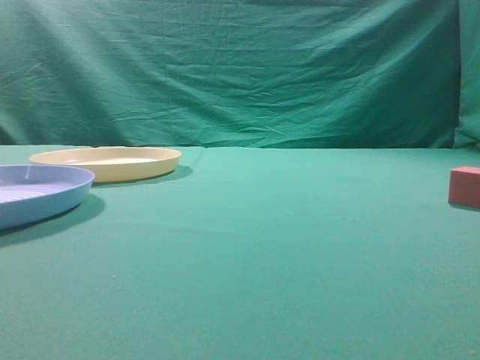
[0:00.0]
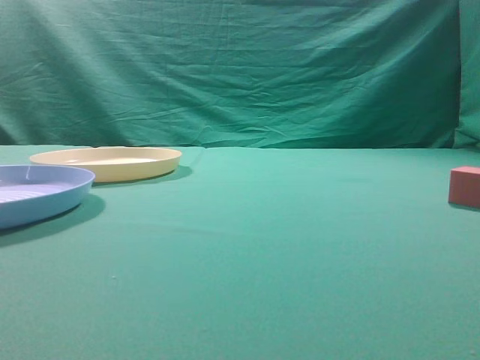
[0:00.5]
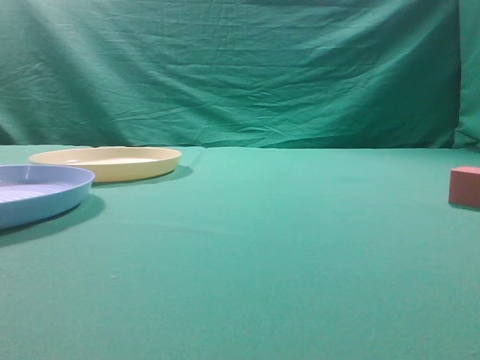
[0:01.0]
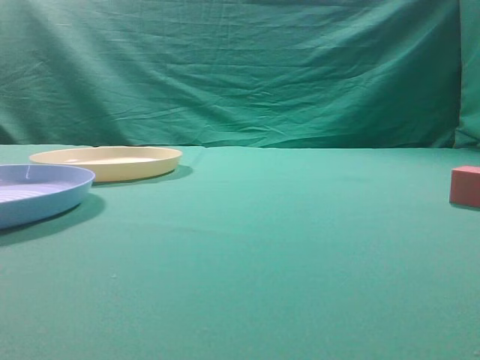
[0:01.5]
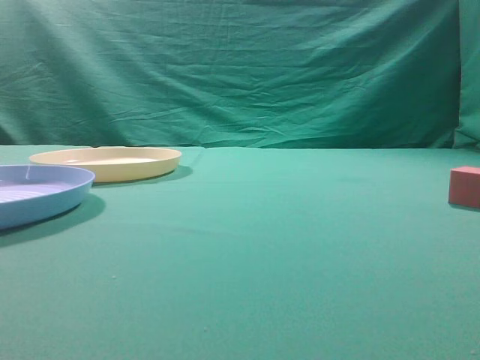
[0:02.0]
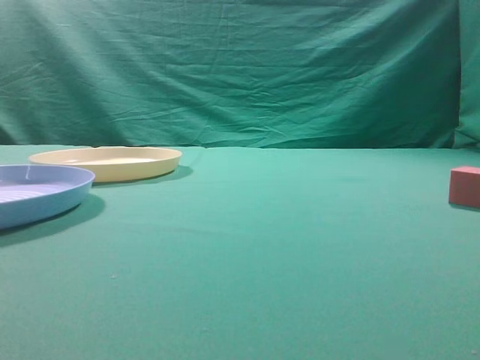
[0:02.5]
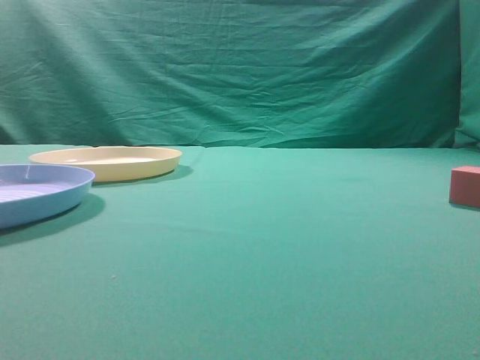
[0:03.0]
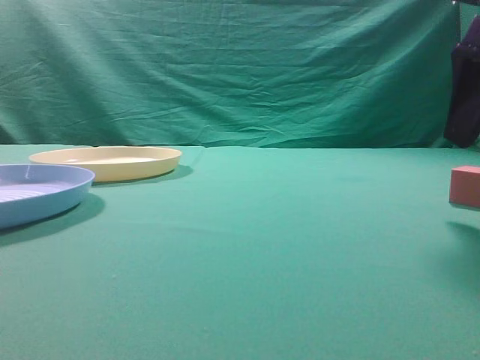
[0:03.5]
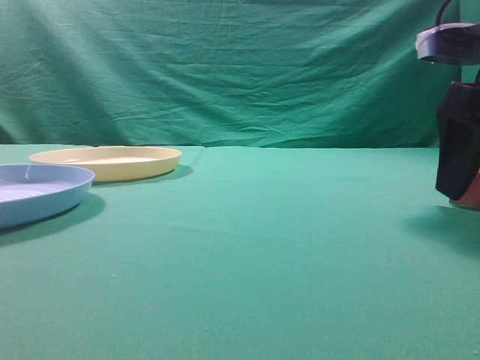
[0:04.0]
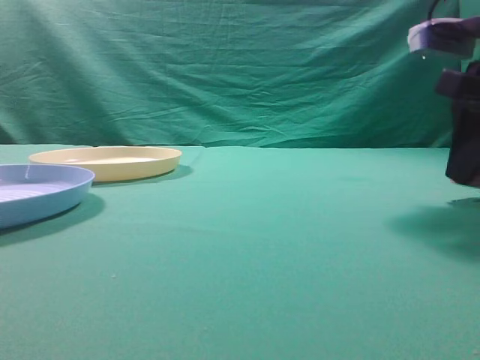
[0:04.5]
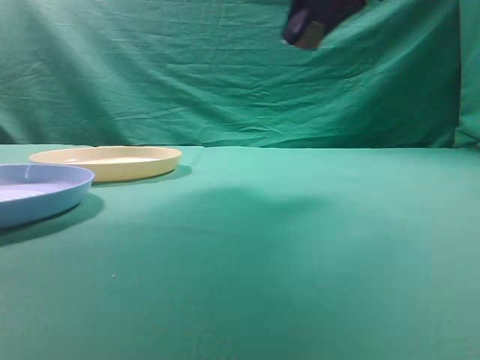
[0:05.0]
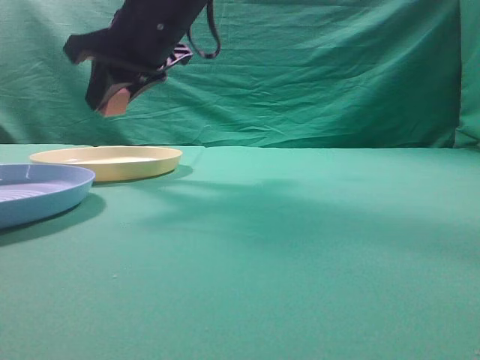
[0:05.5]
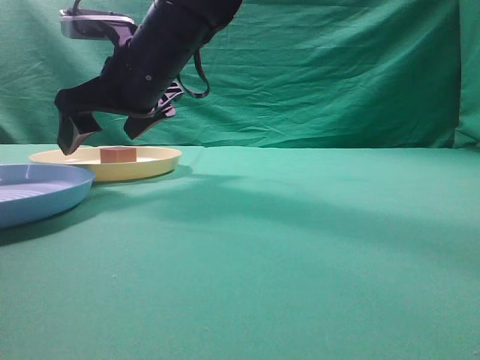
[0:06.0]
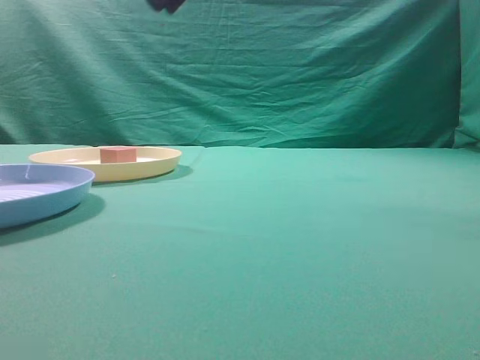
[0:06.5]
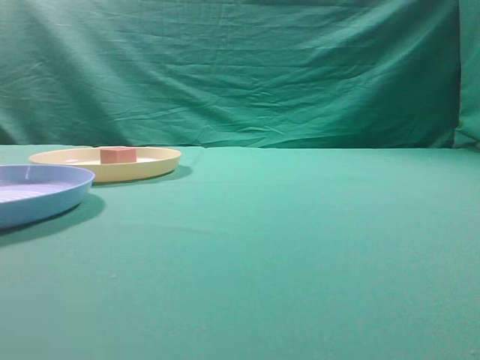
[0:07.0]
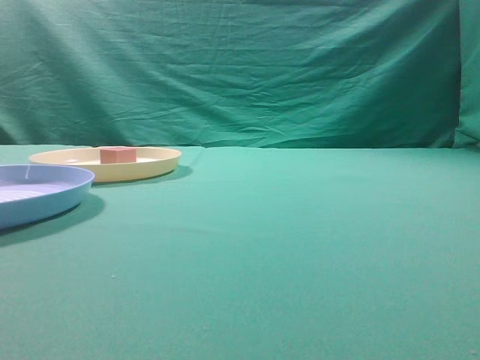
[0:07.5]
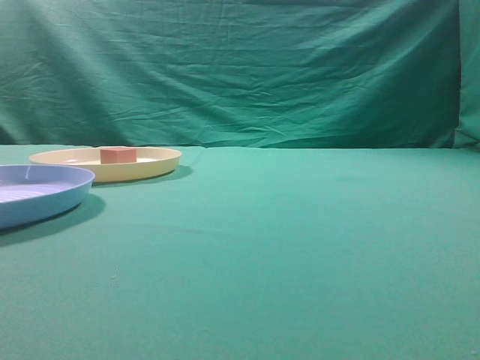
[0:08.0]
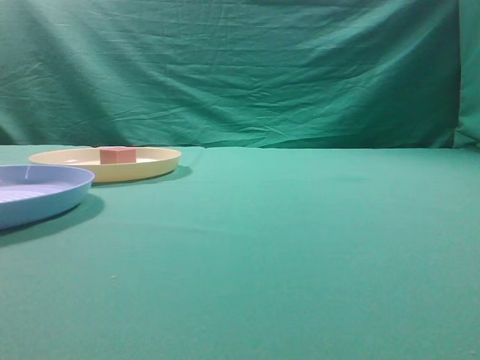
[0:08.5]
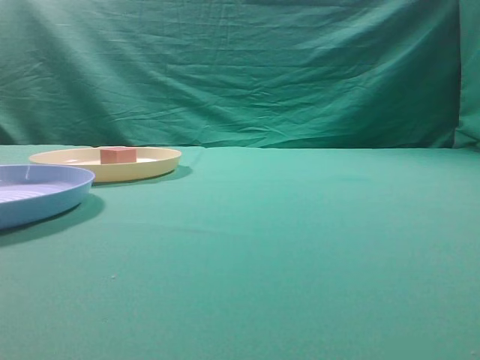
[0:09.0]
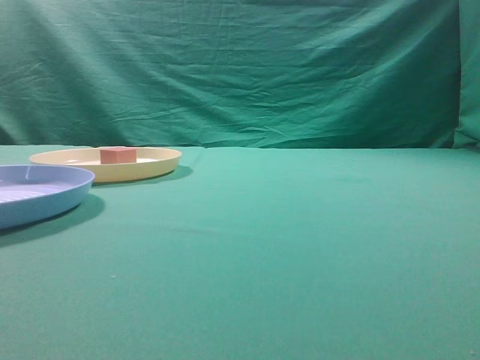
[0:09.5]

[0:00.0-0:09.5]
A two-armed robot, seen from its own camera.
Task of the whole recording: pick up the cube block from the table and put it on the plate.
Step, 0:00.0 to 0:04.5: Grasp the small cube on the table.
Step, 0:05.0 to 0:06.0: Place it into the yellow plate.
0:02.0 to 0:04.0: The right gripper goes roughly 25 cm forward and downward, and opens its fingers.
0:04.0 to 0:05.5: The right gripper heads to the left, covering about 35 cm, and closes up.
0:05.5 to 0:07.5: The right gripper shifts approximately 40 cm to the right, backward and upward, and closes its fingers.

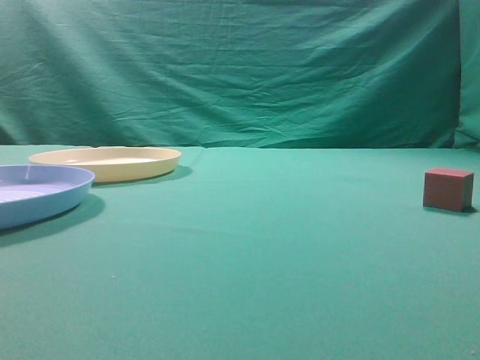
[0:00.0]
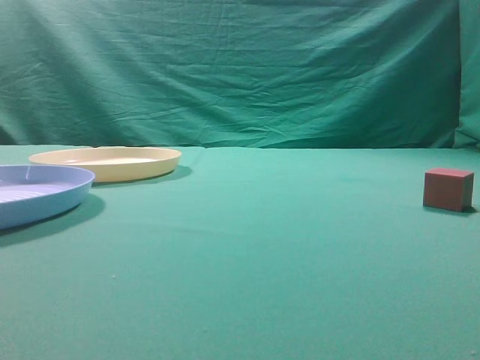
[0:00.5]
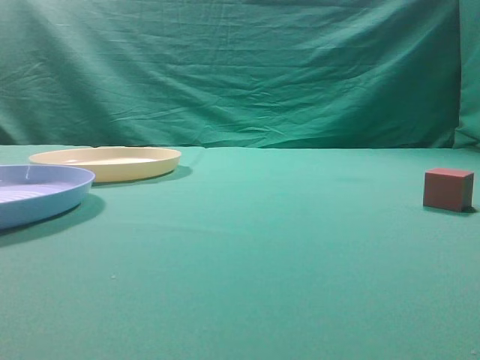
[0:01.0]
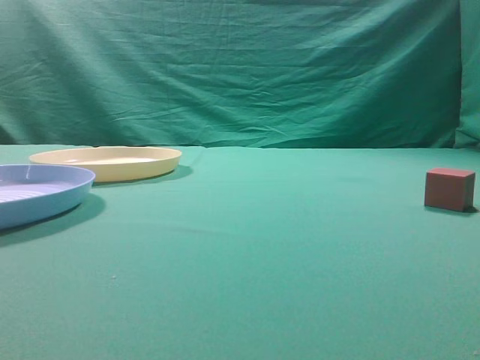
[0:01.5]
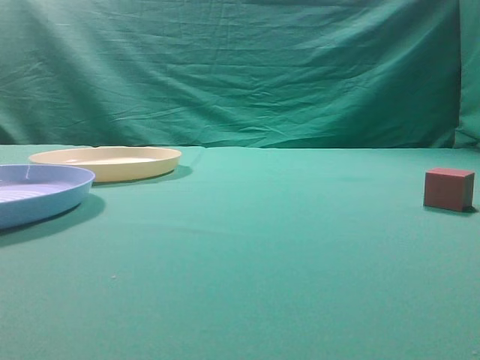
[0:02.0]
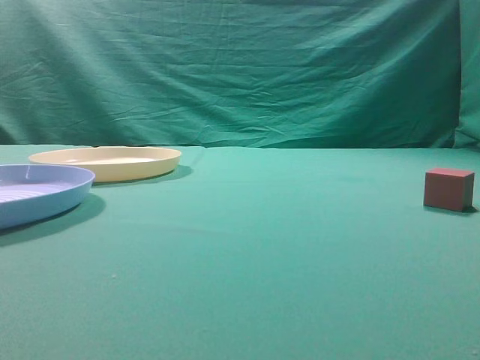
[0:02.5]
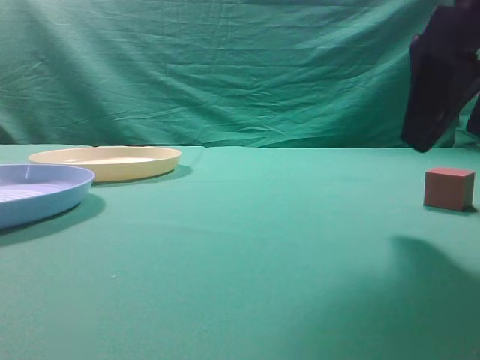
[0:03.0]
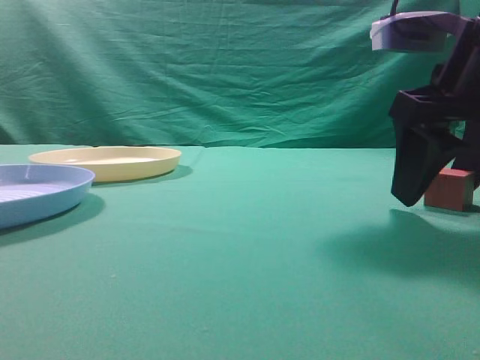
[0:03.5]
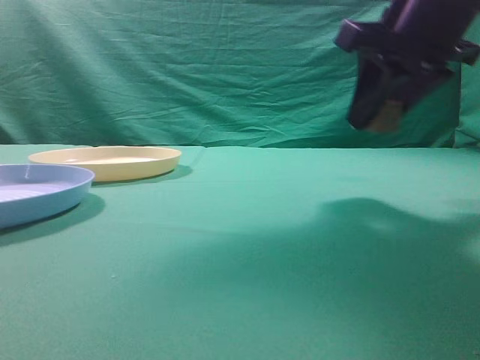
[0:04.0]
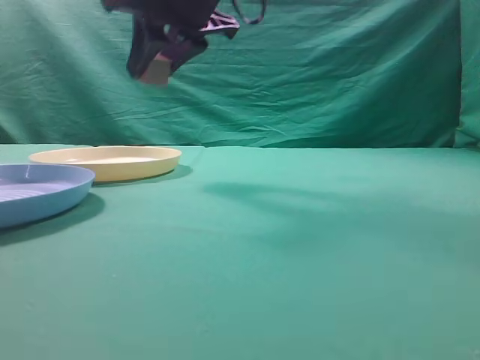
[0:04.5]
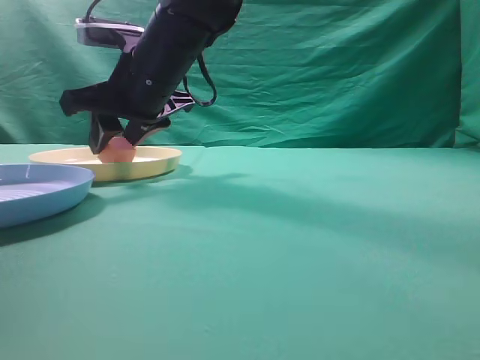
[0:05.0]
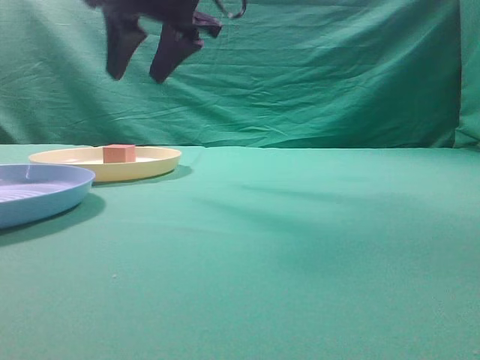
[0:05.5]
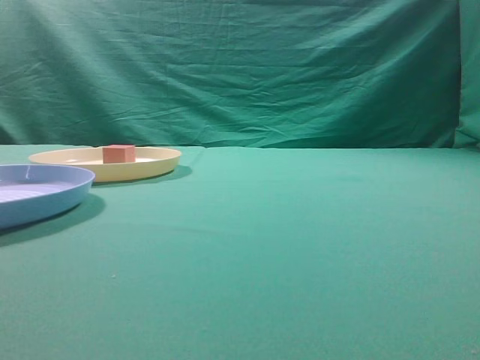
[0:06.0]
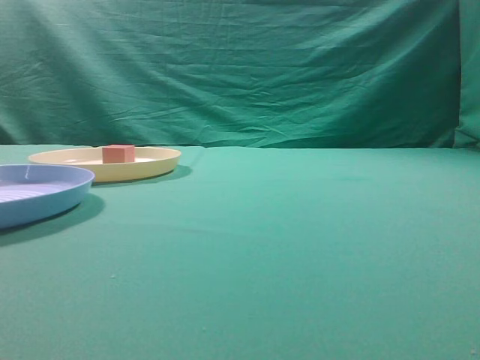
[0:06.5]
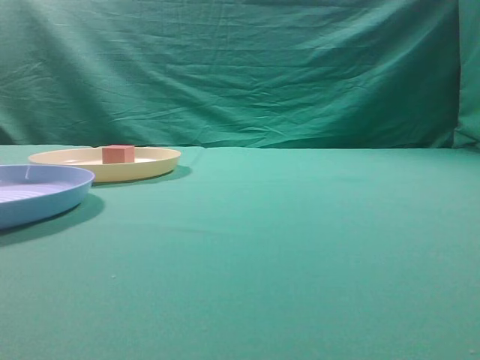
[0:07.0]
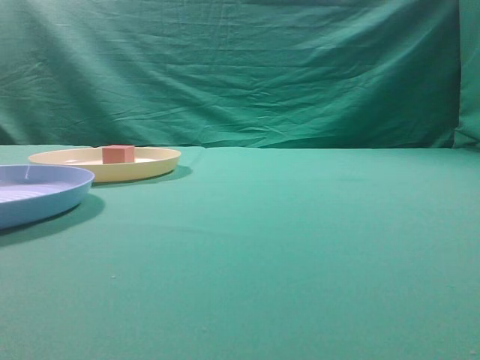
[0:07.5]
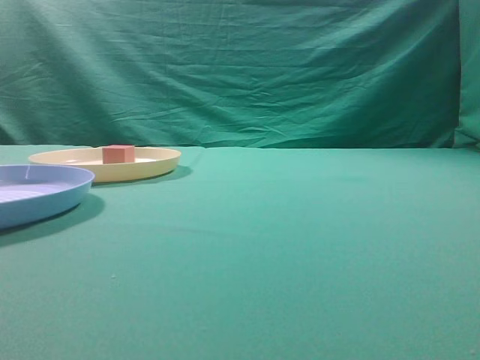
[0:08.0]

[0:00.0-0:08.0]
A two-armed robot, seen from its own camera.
Task of the whole recording: pick up the cube block from the table and put it on the plate.
Step, 0:00.0 to 0:03.5: Grasp the small cube on the table.
Step, 0:04.0 to 0:05.5: Place it into the yellow plate.
0:02.0 to 0:04.0: The right gripper moves forward and to the left, about 25 cm, and opens its fingers.
0:04.0 to 0:06.0: The right gripper shifts about 20 cm upward and to the left, and closes its fingers.
